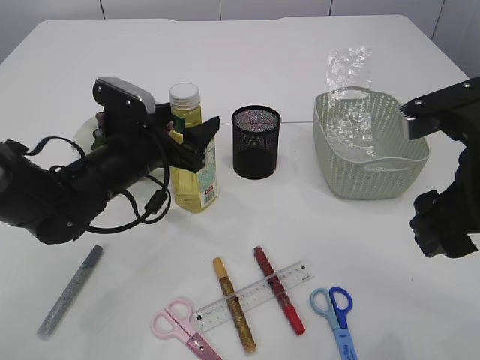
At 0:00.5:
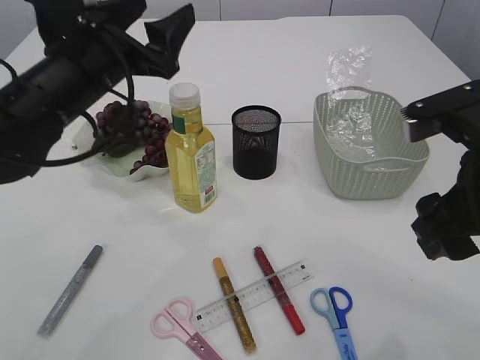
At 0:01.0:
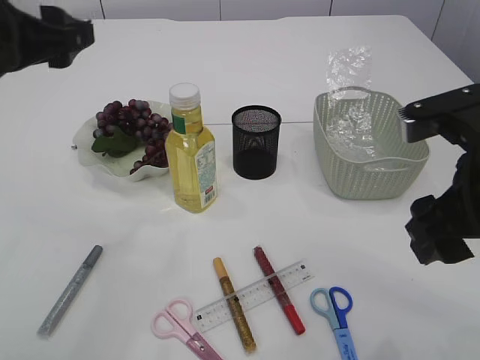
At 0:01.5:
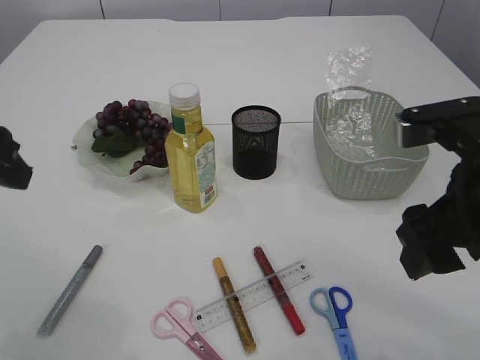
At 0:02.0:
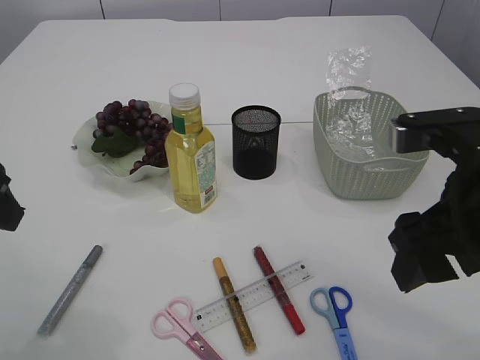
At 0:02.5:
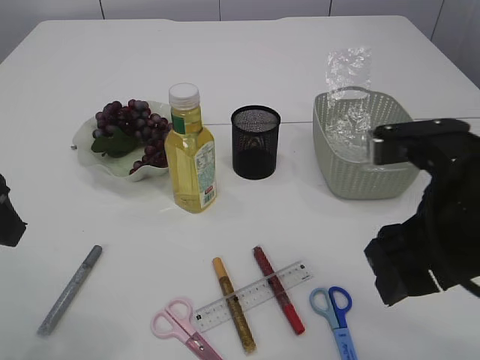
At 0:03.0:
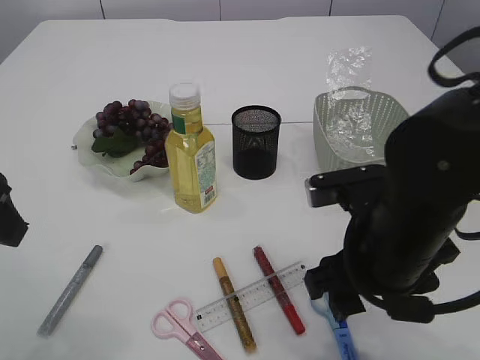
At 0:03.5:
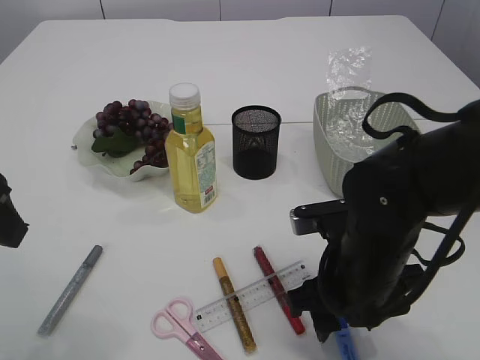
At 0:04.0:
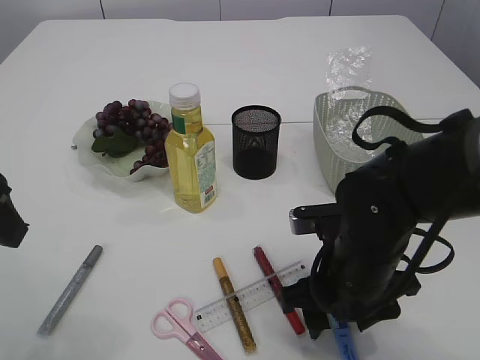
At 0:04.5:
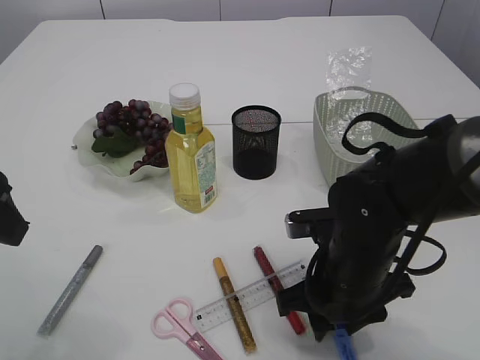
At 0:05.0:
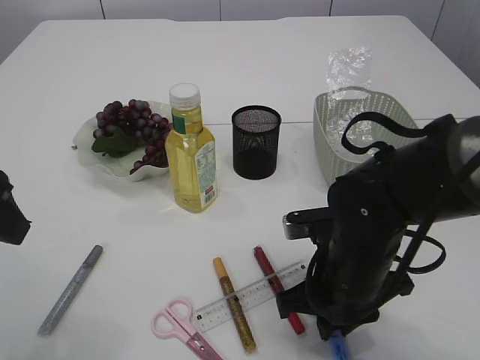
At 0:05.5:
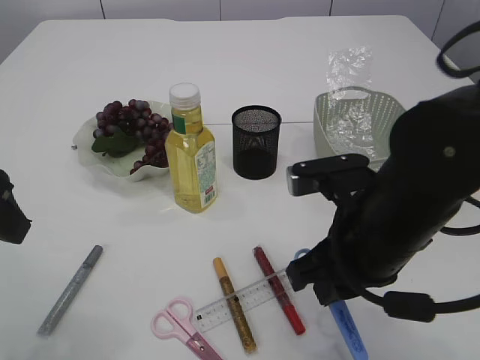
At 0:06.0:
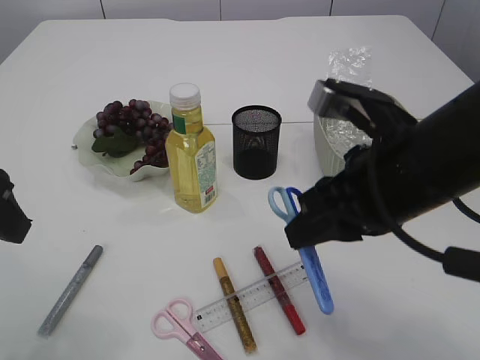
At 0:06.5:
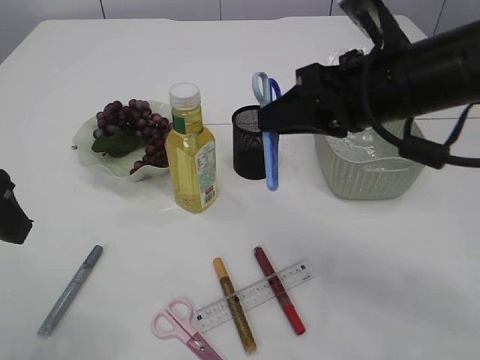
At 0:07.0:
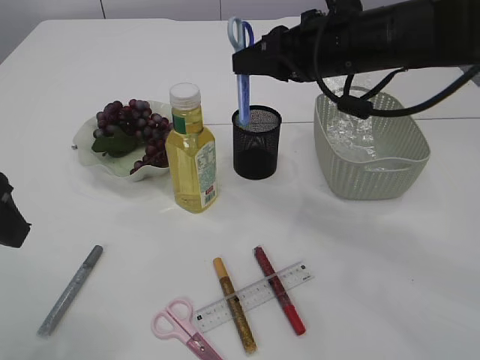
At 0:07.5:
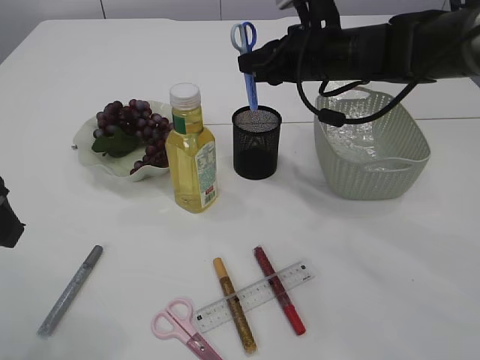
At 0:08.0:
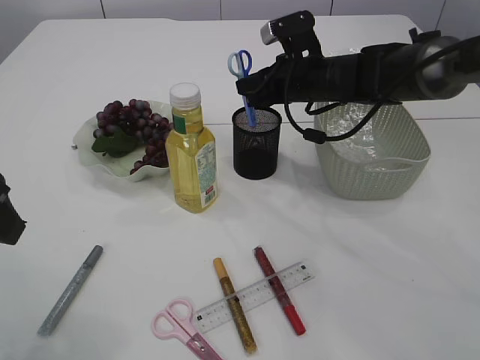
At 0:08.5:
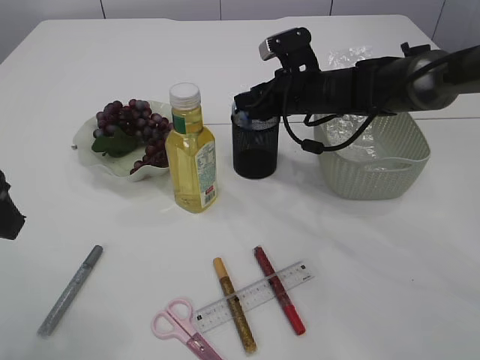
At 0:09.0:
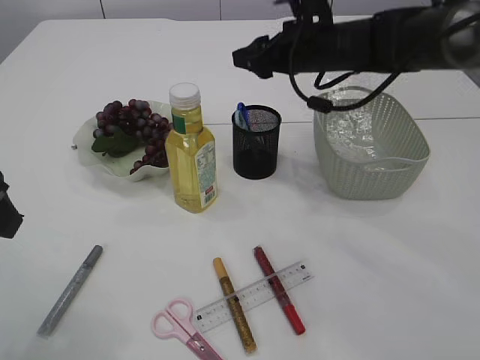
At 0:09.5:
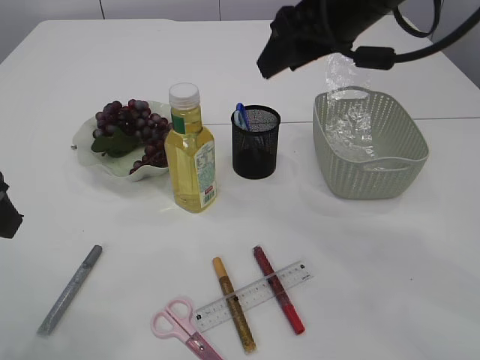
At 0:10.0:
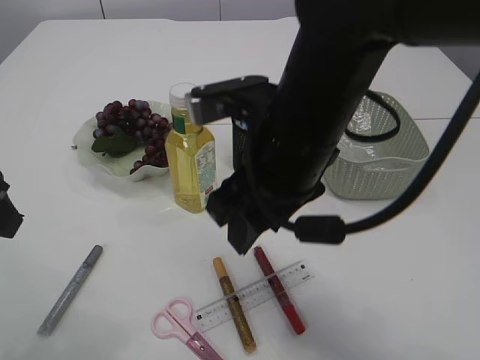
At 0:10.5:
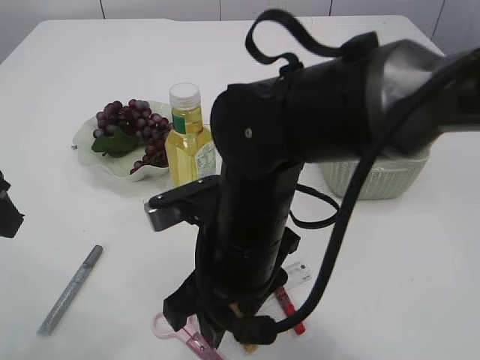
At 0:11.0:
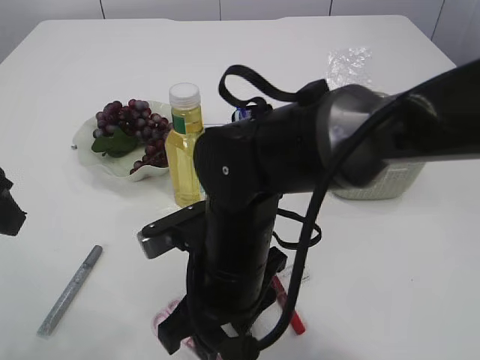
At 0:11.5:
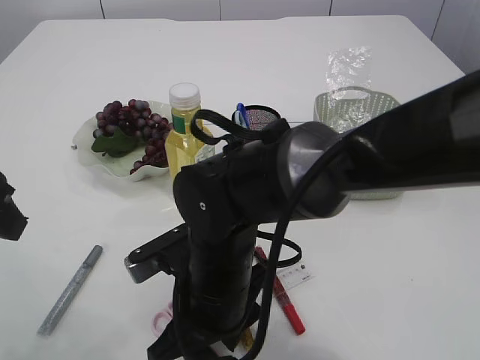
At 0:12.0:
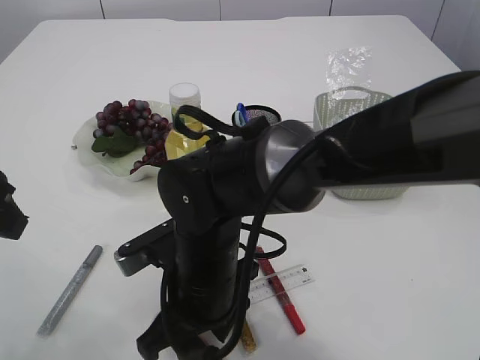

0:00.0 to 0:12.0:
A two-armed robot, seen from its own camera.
Step, 0:00.5 to 0:05.5: pick up the blue scissors.
Step, 0:06.0 to 0:09.0: Place the blue scissors into the pen holder.
0:00.0 to 0:02.0: The left gripper is displaced upward, backward and to the left by some 20 cm.
0:02.0 to 0:04.0: The right gripper shifts approximately 15 cm downward and to the left.
0:04.0 to 0:06.0: The right gripper is displaced upward by approximately 15 cm, and closes.
0:06.0 to 0:08.0: The right gripper heads forward, covering roughly 25 cm.
0:08.0 to 0:10.0: The right gripper heads backward, covering roughly 20 cm, and opens.
0:10.0 to 0:12.0: The right gripper is displaced downward and to the left by approximately 15 cm.

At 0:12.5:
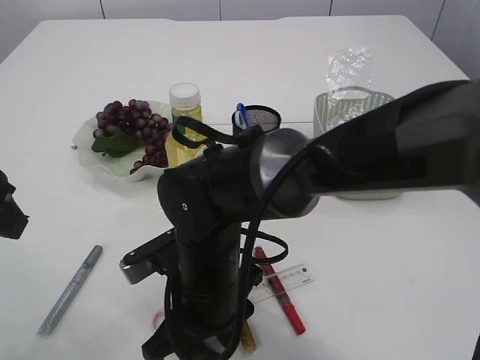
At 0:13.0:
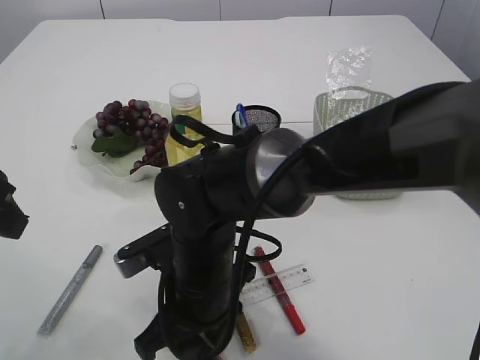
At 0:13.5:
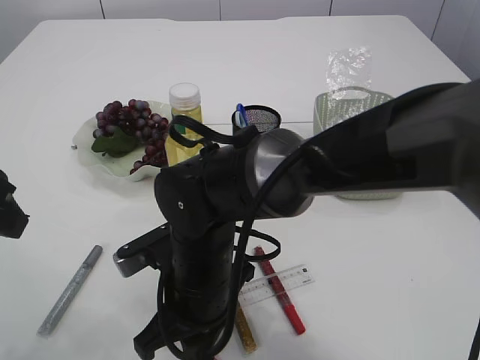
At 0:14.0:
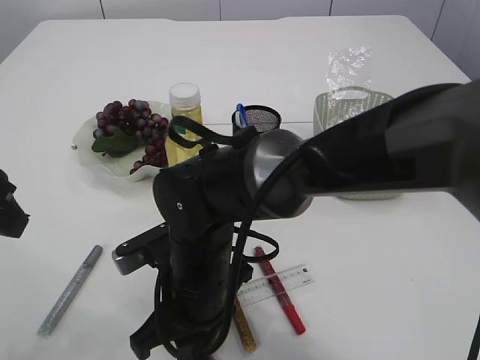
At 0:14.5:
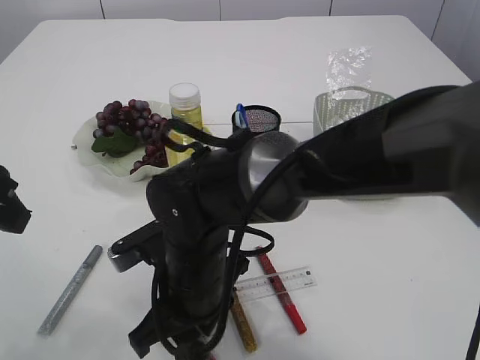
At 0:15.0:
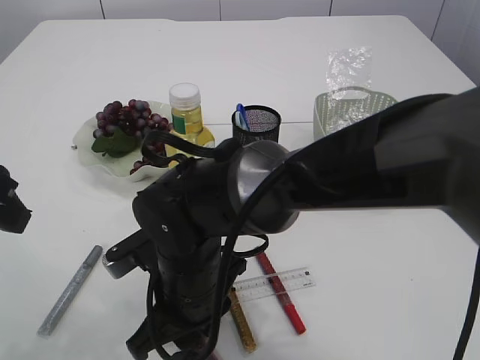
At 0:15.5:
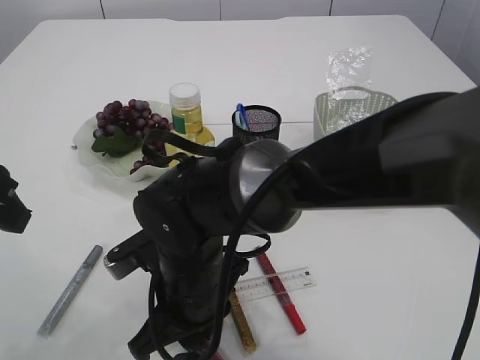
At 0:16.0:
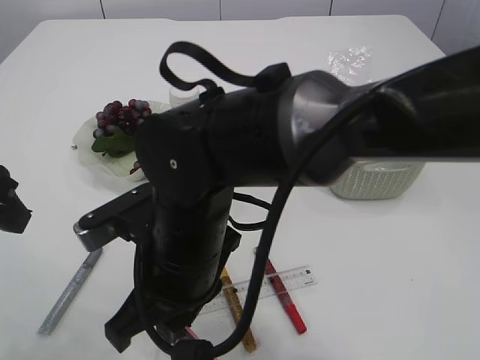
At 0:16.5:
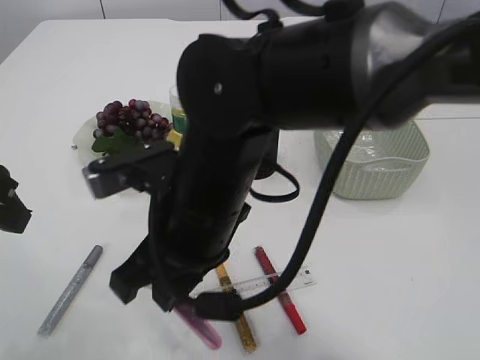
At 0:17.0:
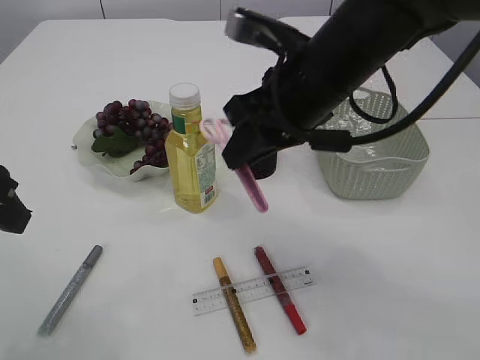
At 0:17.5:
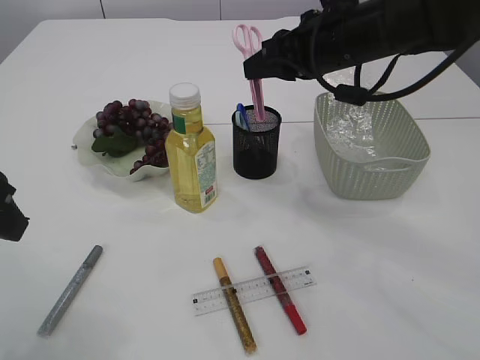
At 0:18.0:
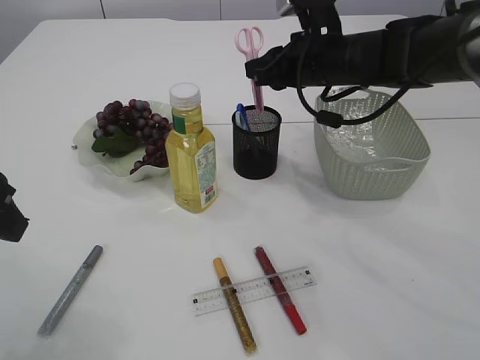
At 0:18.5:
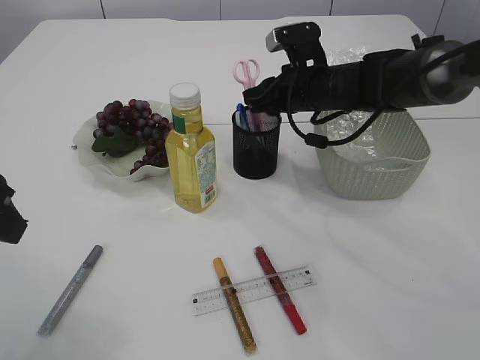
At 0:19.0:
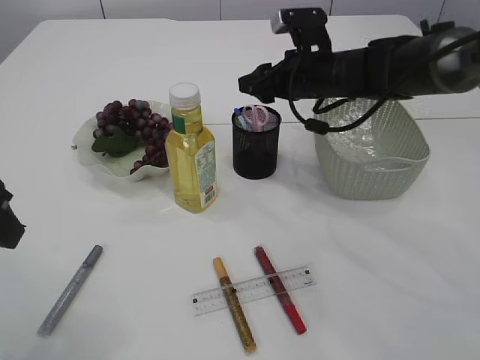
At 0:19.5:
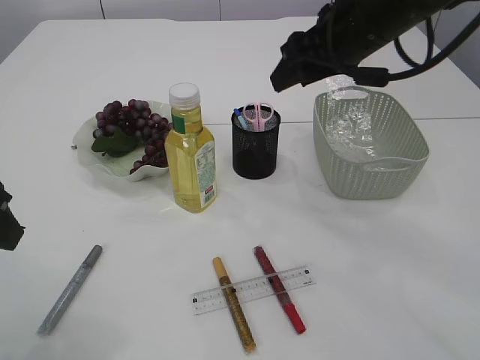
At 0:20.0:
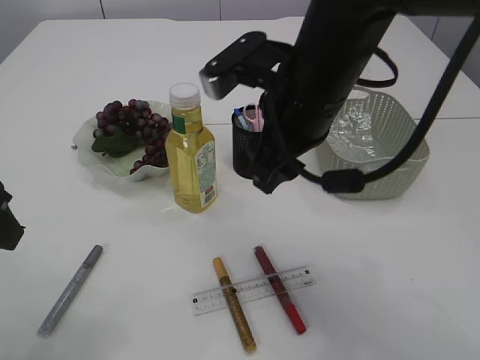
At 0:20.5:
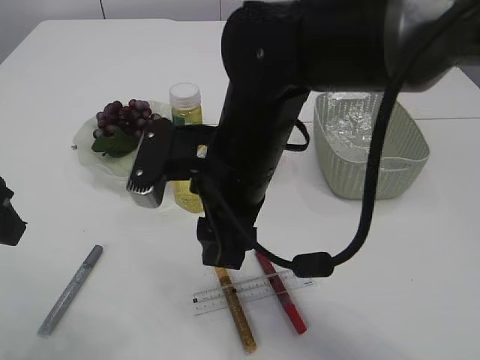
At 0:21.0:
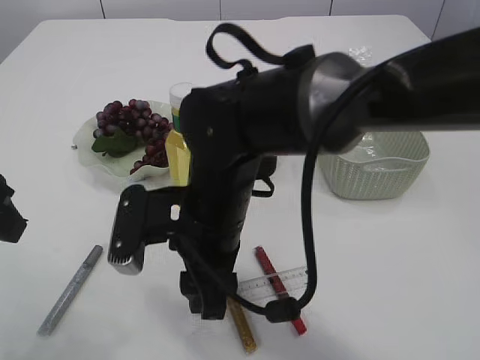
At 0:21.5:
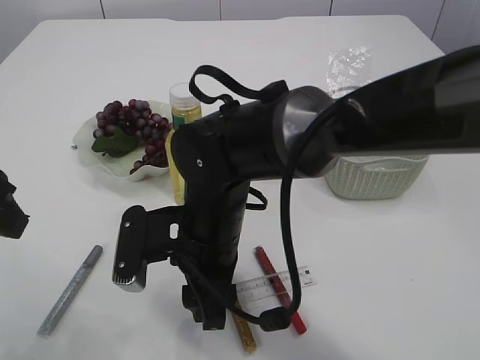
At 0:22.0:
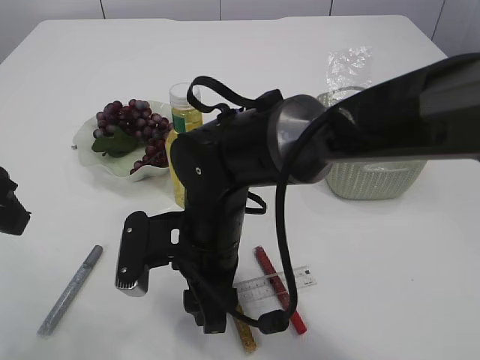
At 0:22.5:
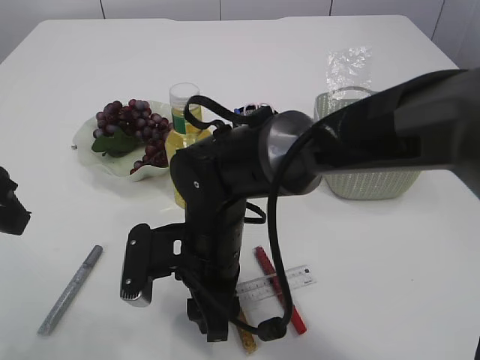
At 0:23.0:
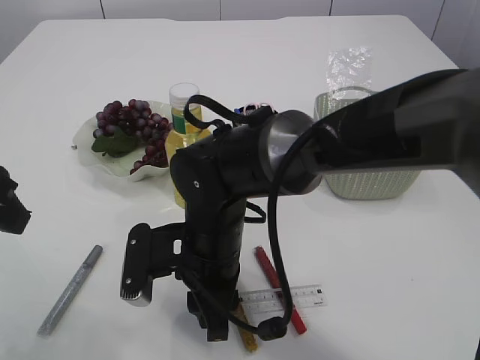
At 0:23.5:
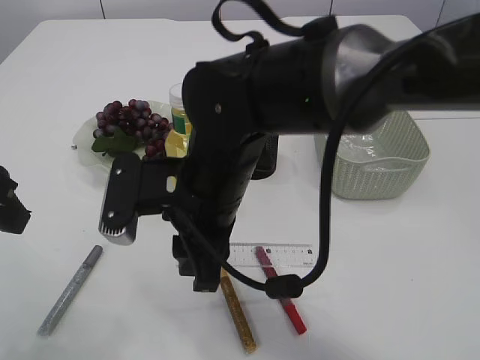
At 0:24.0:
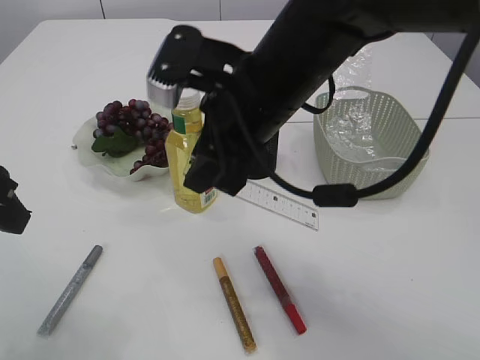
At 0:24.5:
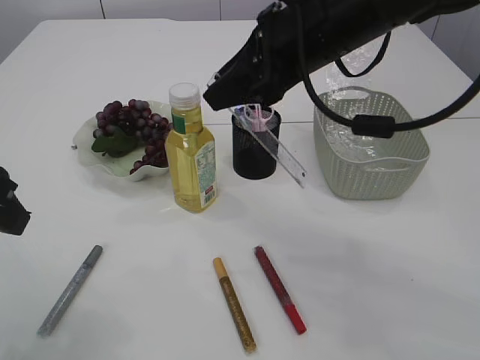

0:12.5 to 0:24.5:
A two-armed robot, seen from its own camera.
Step, 0:12.5 to 0:16.0: pick up the pink scissors.
Step, 0:16.5 to 0:19.0: Place the pink scissors into the pen holder.
Step, 0:19.5 to 0:23.5: pick up the ruler.
0:12.5 to 0:14.5: The grippers move only a little.
0:14.5 to 0:16.5: The right gripper shifts about 10 cm upward.
0:16.5 to 0:18.5: The right gripper is displaced forward and to the right by roughly 30 cm.
0:18.5 to 0:20.5: The right gripper is displaced backward and to the left by about 25 cm, and opens.
0:20.5 to 0:22.5: The right gripper shifts about 10 cm downward.
0:22.5 to 0:24.5: The right gripper travels upward and to the right by roughly 25 cm.

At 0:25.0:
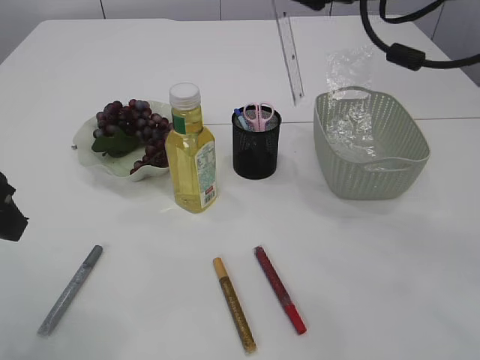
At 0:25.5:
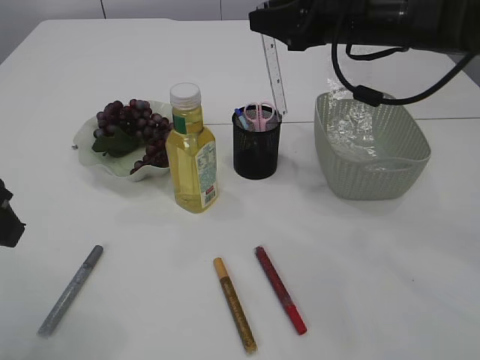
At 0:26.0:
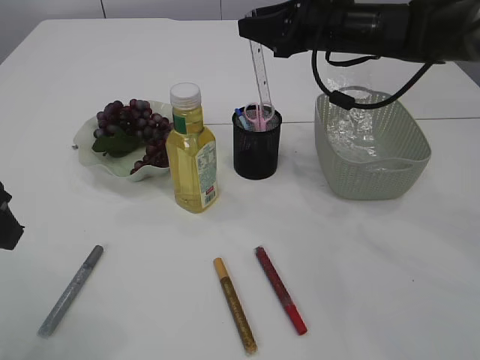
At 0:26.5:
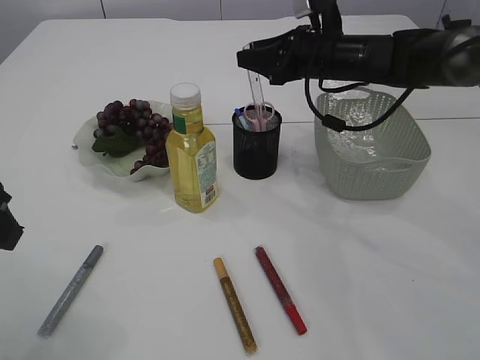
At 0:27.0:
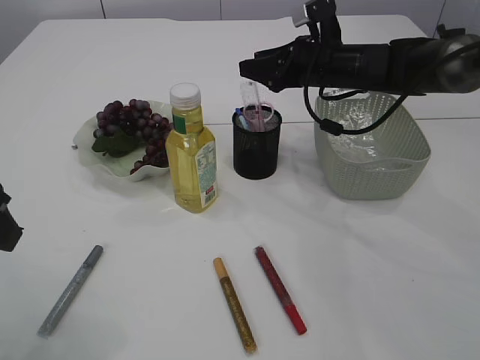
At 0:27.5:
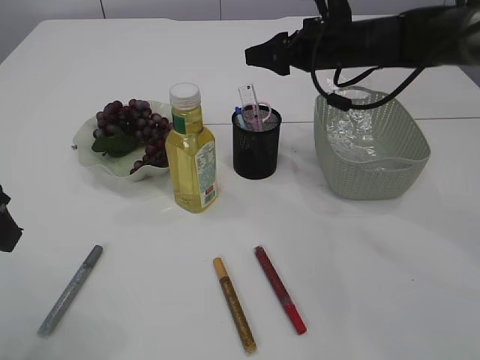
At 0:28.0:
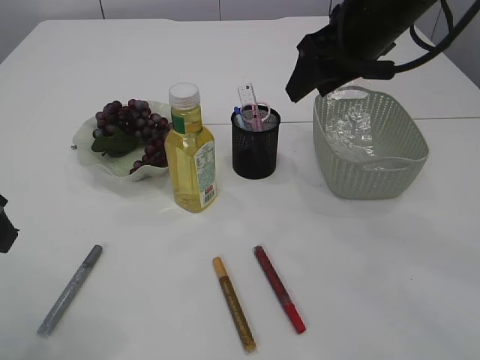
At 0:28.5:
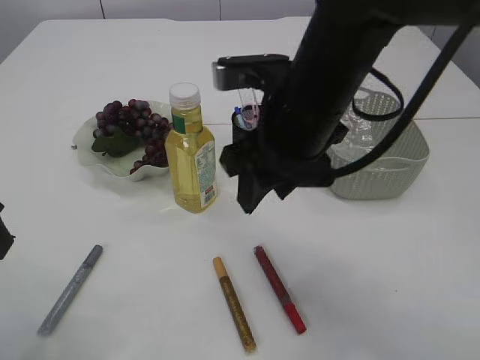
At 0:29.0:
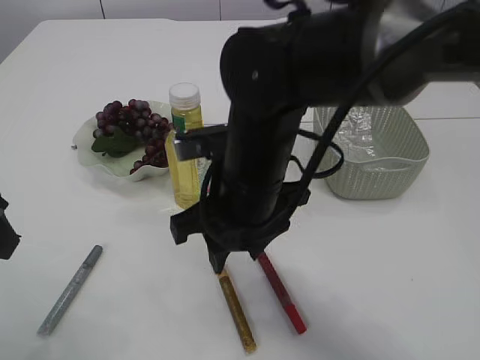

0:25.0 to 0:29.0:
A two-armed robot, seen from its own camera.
Step, 0:25.0 to 0:27.0: Place the ruler into the pen holder.
0:25.0 to 0:27.0: The right gripper goes about 20 cm downward and forward.
0:27.0 to 0:29.0: The right gripper shifts about 25 cm backward and to the left.
